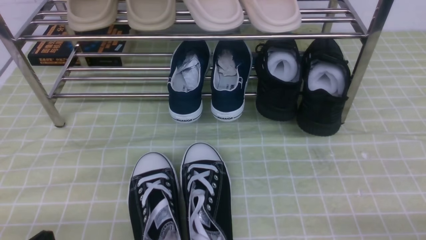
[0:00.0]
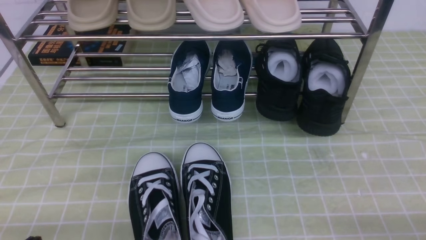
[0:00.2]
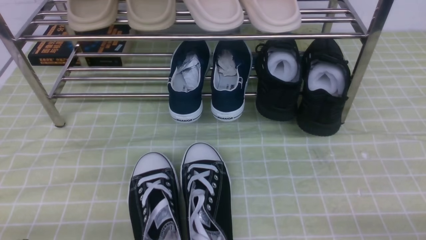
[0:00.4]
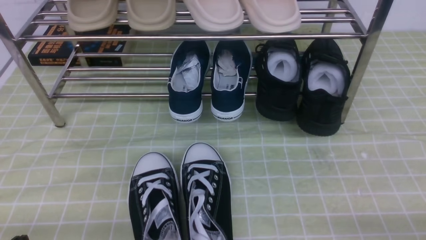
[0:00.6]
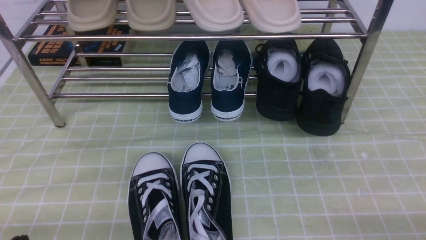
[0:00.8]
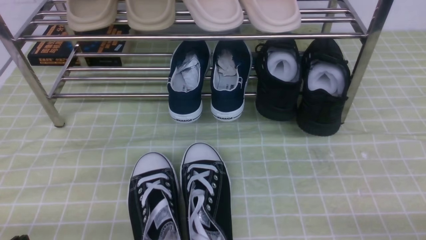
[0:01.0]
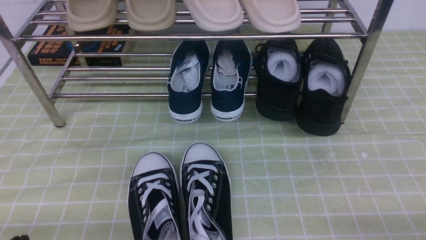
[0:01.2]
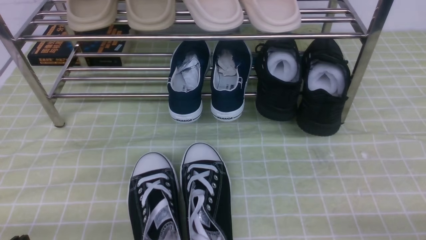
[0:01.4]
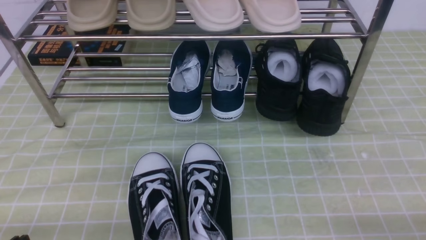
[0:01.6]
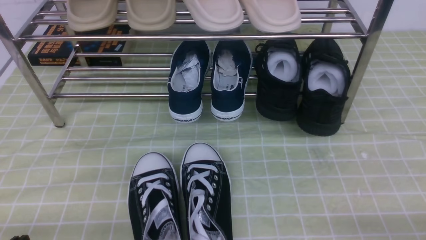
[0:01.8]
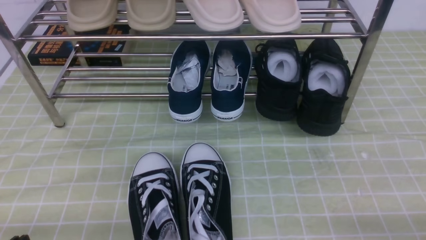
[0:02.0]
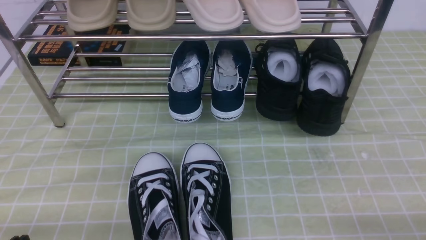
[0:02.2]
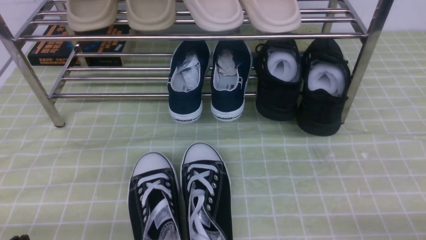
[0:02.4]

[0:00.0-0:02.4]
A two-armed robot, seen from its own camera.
0:01.2 to 0:02.4: Neither gripper changes place.
